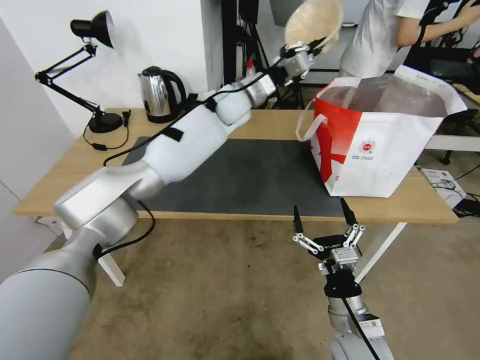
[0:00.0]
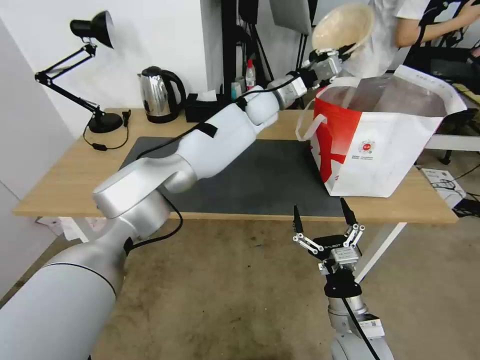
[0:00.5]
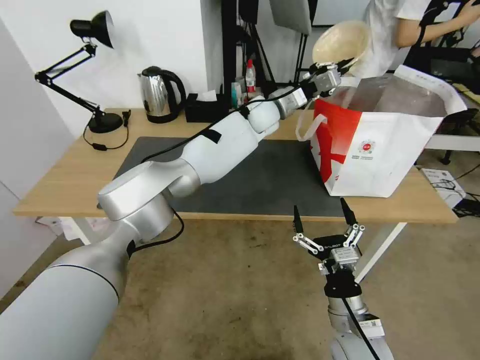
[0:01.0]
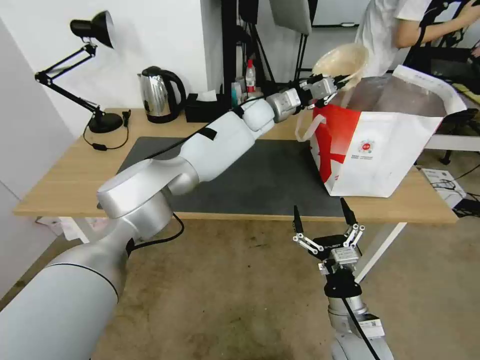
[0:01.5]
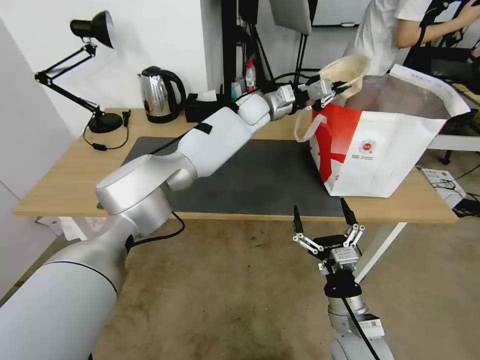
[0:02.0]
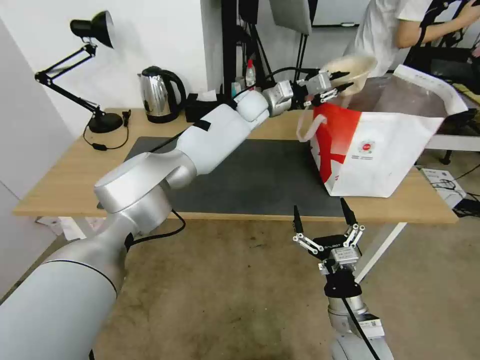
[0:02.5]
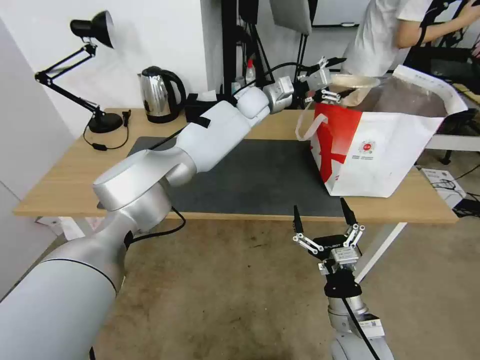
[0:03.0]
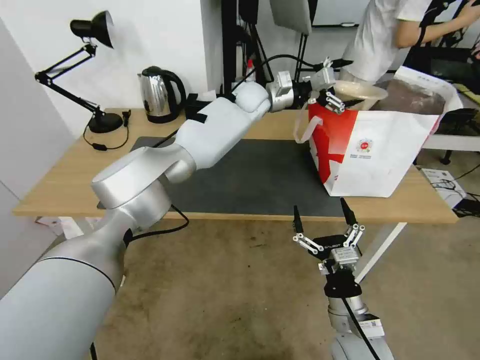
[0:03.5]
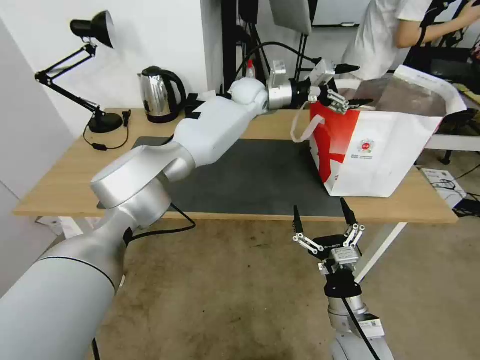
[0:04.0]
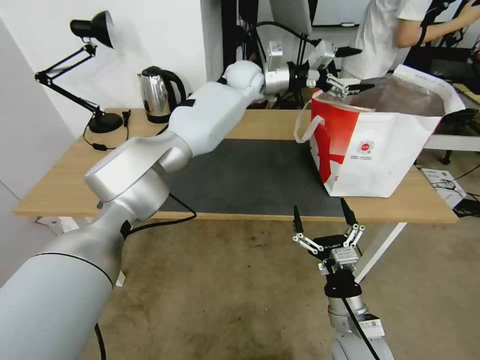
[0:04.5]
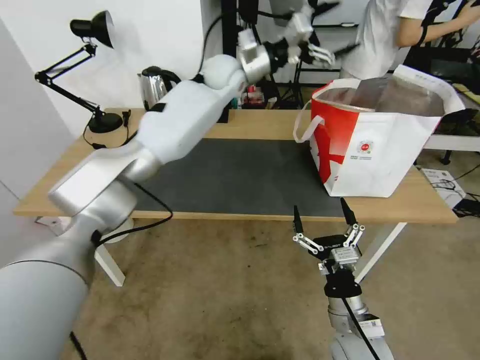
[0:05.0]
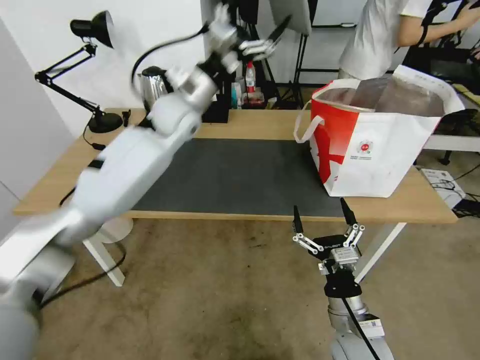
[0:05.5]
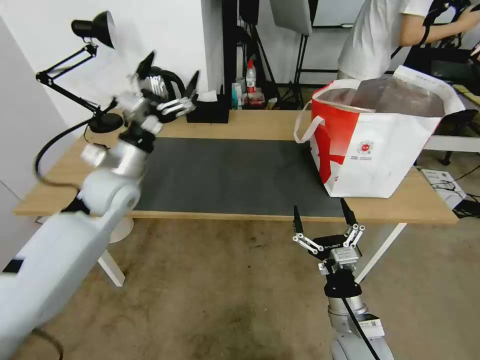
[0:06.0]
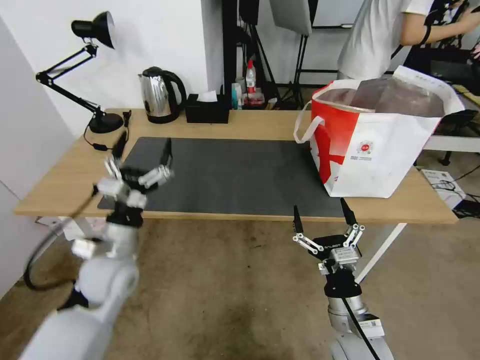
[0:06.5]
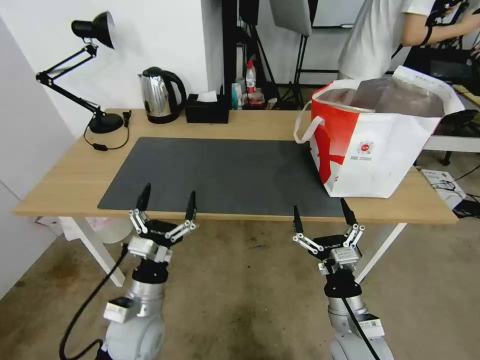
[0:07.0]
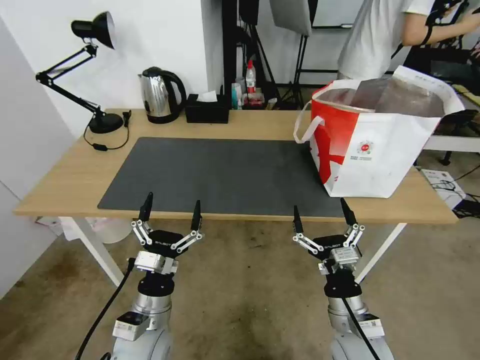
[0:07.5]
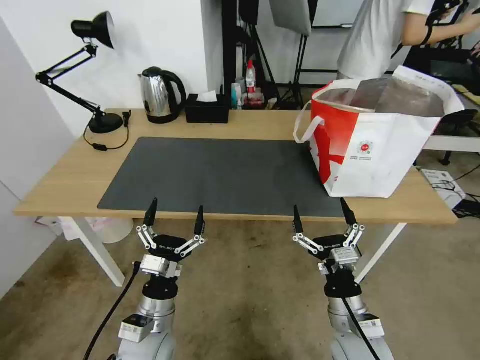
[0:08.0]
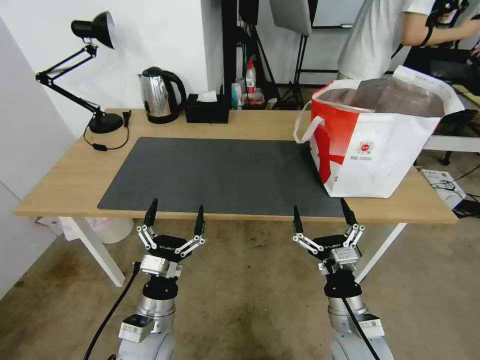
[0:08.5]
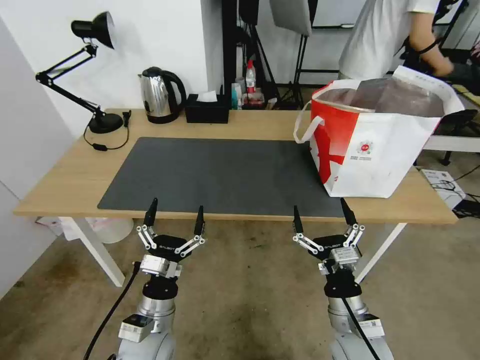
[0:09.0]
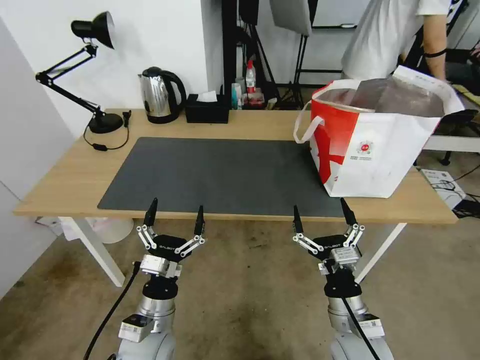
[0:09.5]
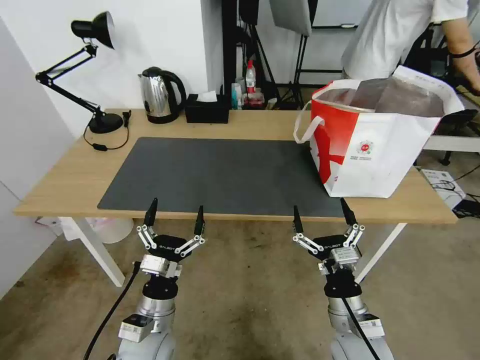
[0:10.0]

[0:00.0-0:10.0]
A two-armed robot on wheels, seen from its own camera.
Task of the whole recording: Pick up the trash from the table and place it into the takeout bag.
0:00.0 to 0:02.0: The left gripper moves about 5 cm.
0:02.0 to 0:04.0: The left gripper opens.
0:04.0 to 0:06.0: The left gripper heads to the left and backward, covering roughly 35 cm.
0:06.0 to 0:08.0: The left gripper heads backward and downward, covering some 30 cm.
0:08.0 to 0:10.0: Neither gripper changes place.

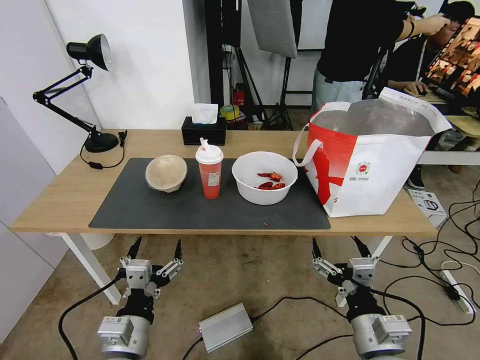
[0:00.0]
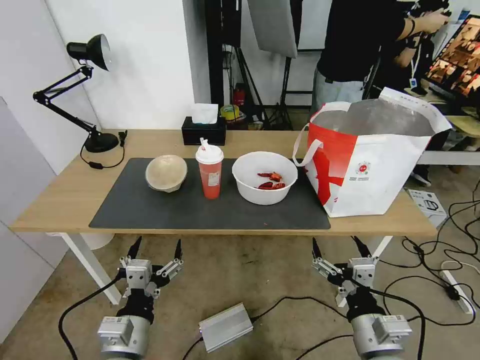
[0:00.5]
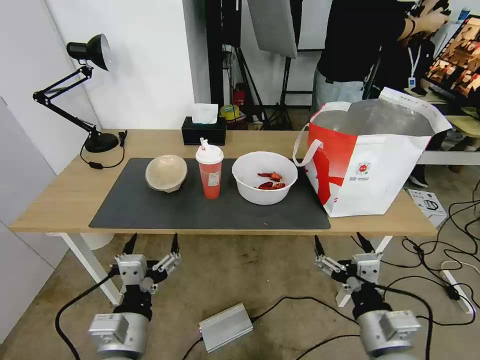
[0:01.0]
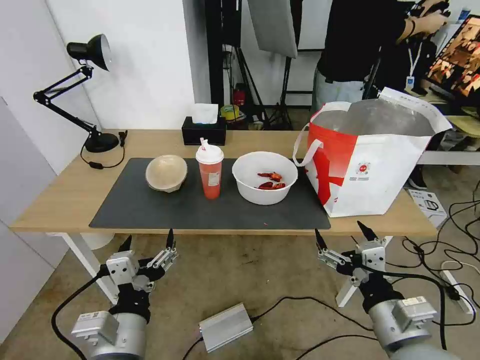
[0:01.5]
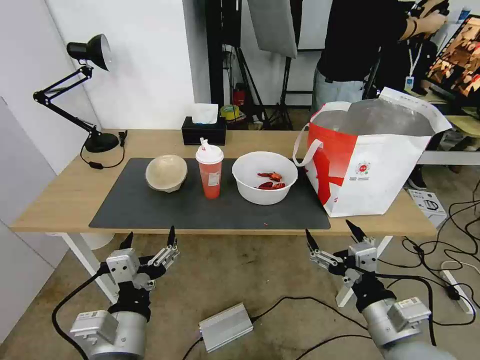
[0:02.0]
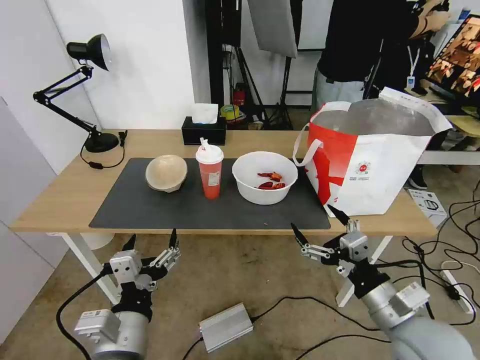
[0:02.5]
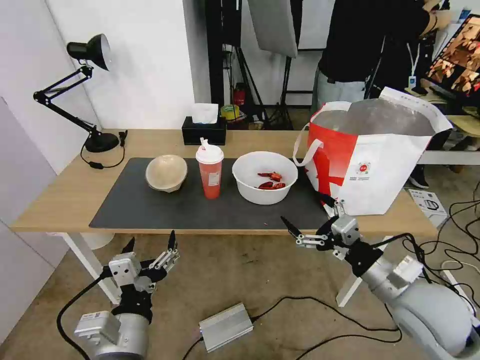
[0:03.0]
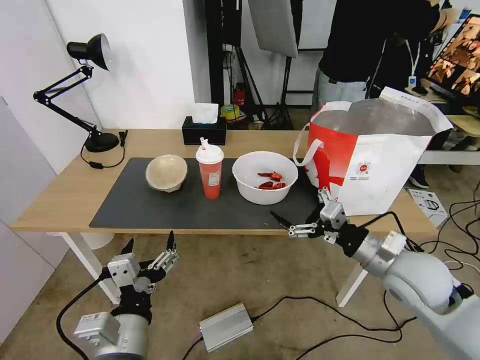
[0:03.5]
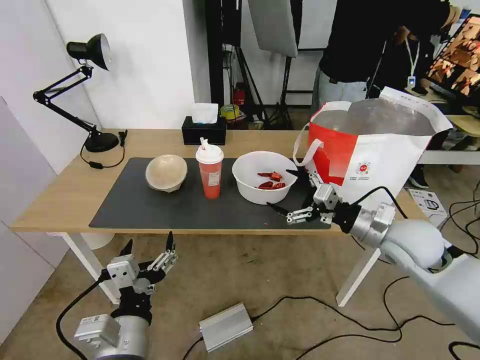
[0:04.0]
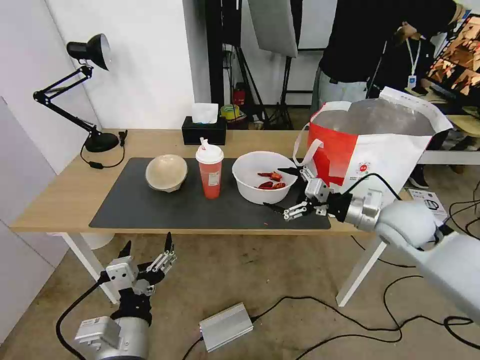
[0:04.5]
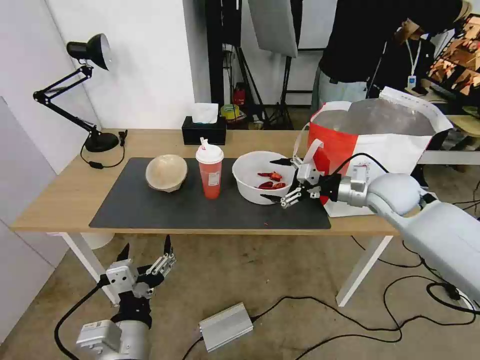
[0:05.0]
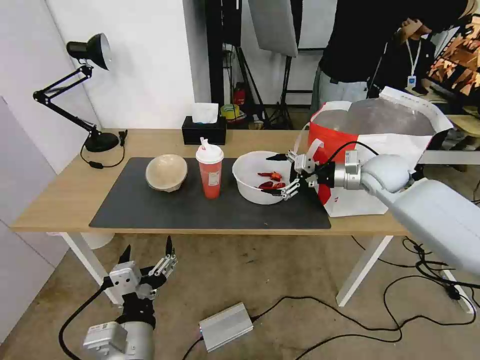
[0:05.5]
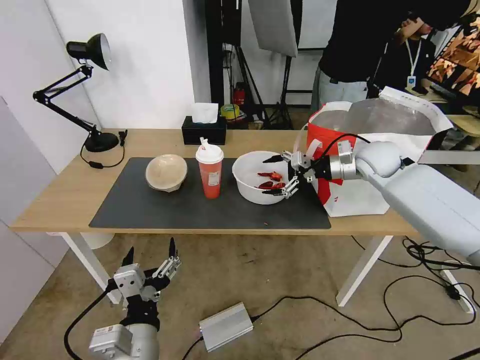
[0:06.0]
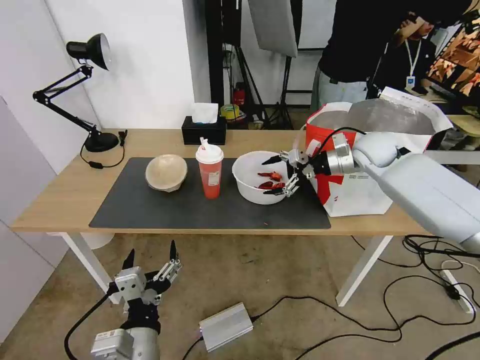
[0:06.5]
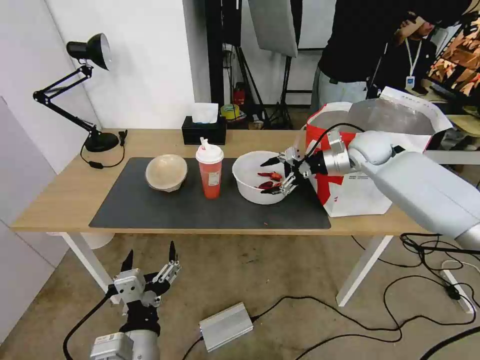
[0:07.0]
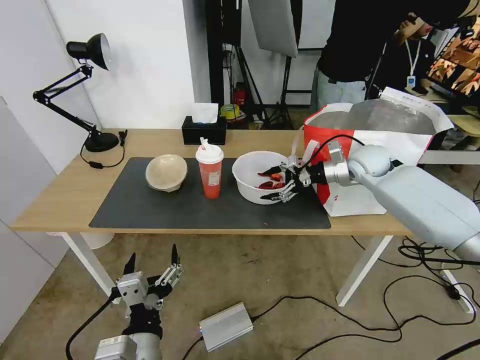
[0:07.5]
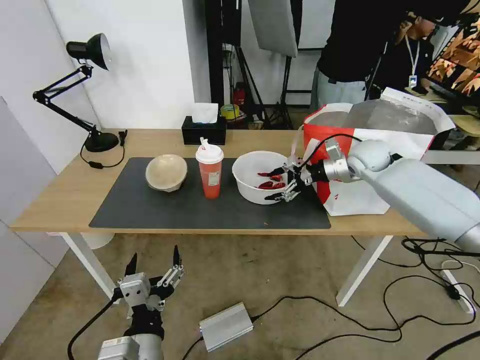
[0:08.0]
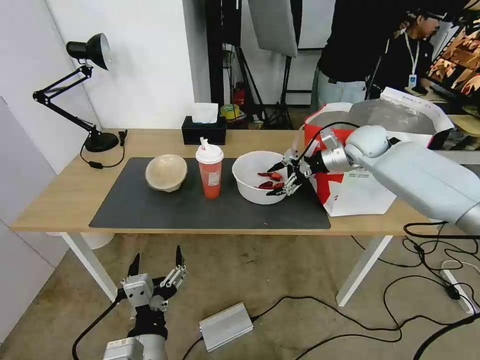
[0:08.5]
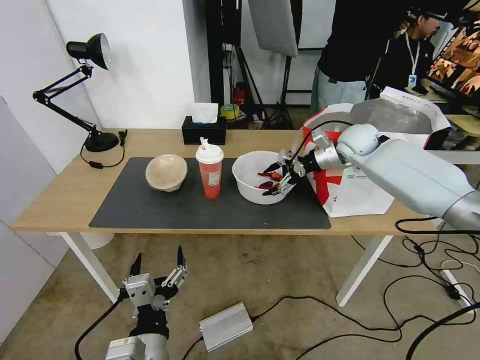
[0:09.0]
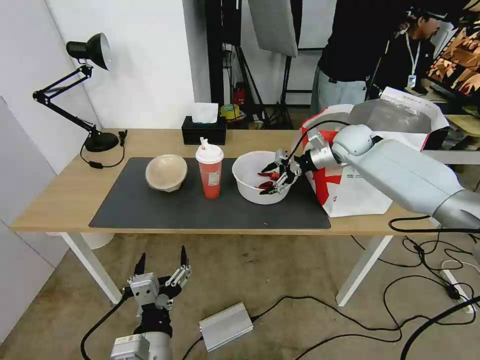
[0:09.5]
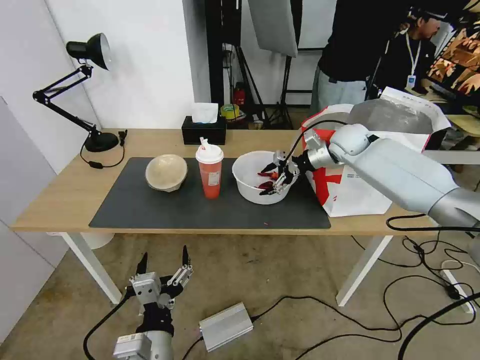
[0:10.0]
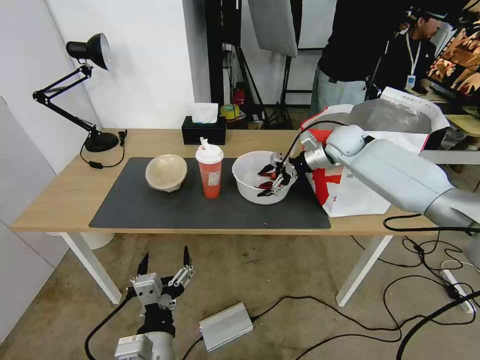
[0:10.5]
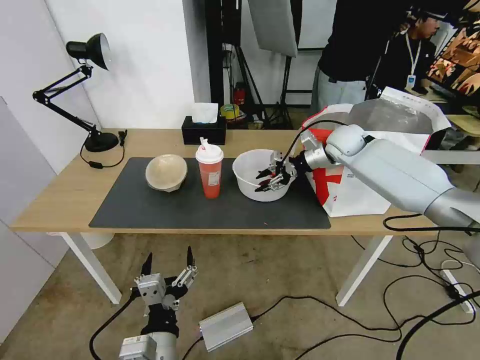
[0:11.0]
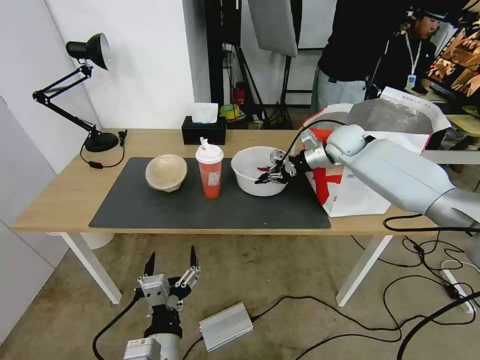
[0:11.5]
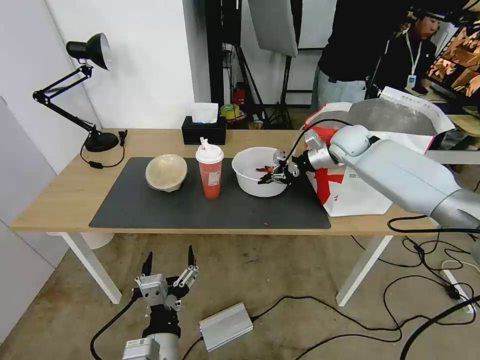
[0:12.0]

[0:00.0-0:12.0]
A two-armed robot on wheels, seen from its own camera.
Task of the whole recording: Pick up the trash from the table and place it into the takeout bag.
0:02.0 to 0:04.0: The right gripper is displaced forward by approximately 20 cm.
0:04.0 to 0:06.0: The right gripper shifts about 20 cm forward.
0:08.0 to 0:10.0: The right gripper shifts by roughly 5 cm.
0:10.0 to 0:12.0: The right gripper closes up.

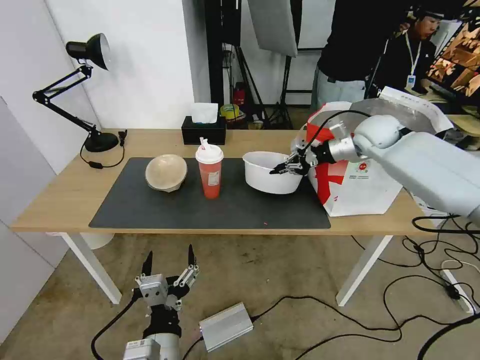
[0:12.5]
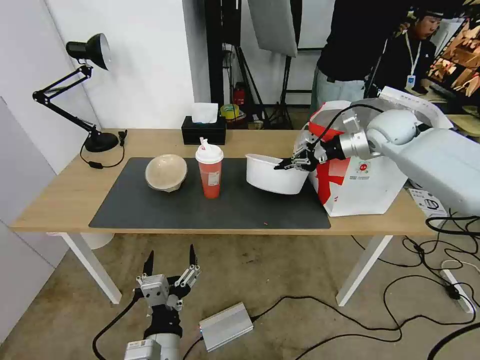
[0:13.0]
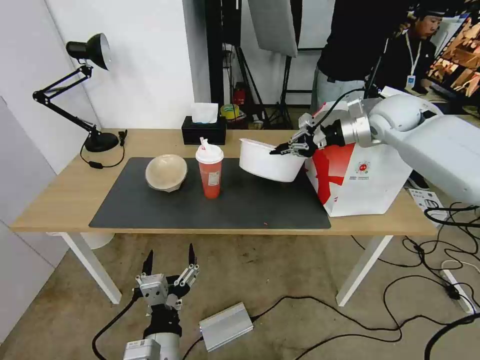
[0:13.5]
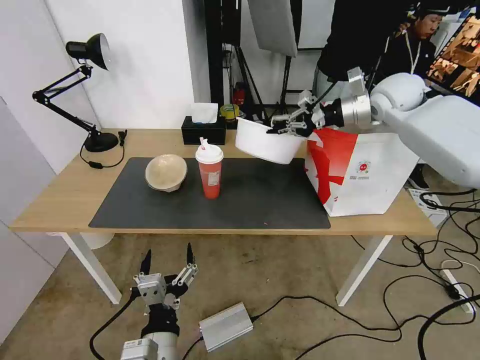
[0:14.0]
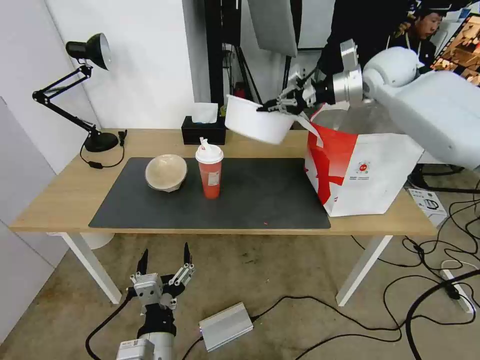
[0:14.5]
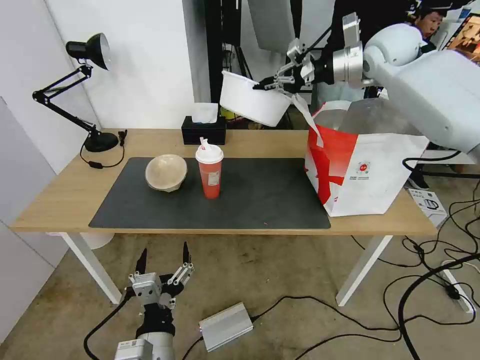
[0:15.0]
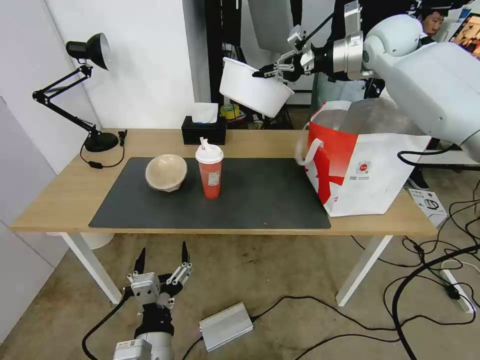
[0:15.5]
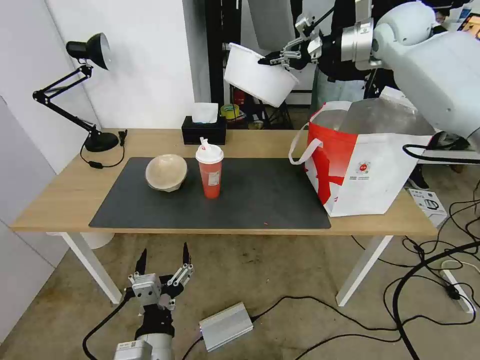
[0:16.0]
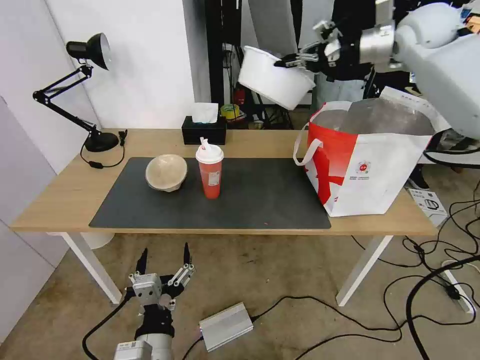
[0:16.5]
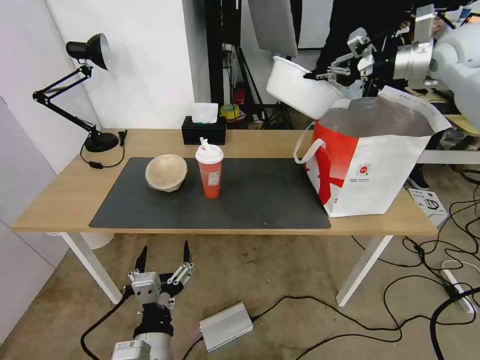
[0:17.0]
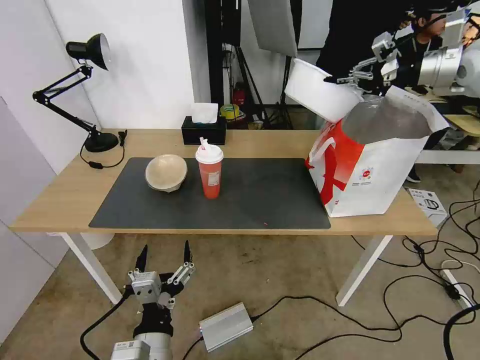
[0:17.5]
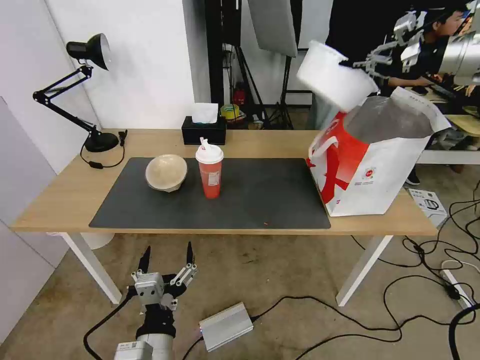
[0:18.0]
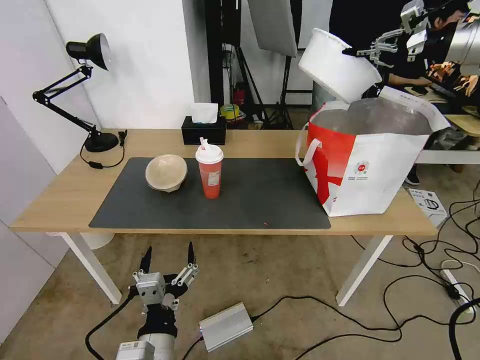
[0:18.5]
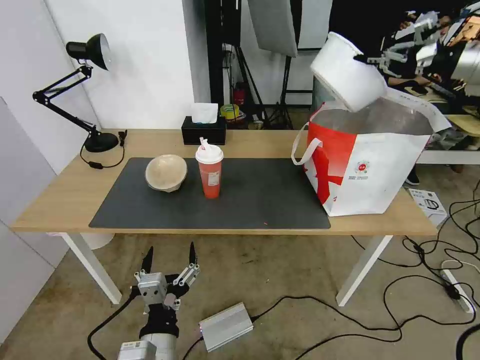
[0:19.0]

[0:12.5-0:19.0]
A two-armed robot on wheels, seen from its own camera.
Task of the whole recording: Pick up the trash from the table and place it into the takeout bag.
0:12.5 to 0:14.5: The right gripper heads upward, covering approximately 15 cm.
0:14.5 to 0:17.0: The right gripper travels to the right by roughly 10 cm.
0:17.0 to 0:19.0: The right gripper travels to the right and backward by some 10 cm.
